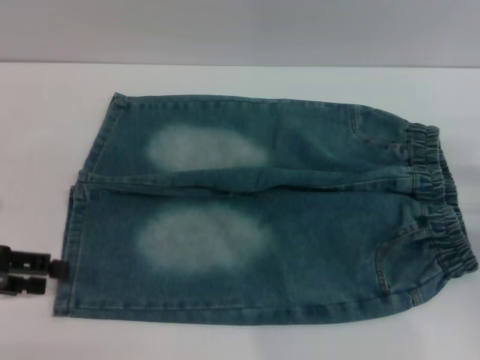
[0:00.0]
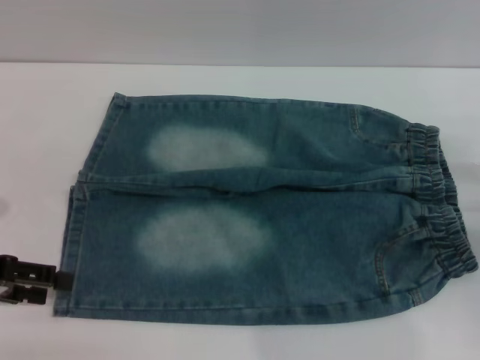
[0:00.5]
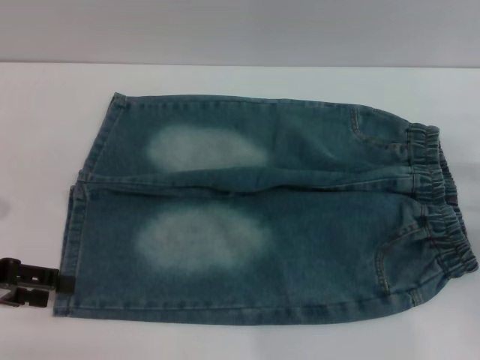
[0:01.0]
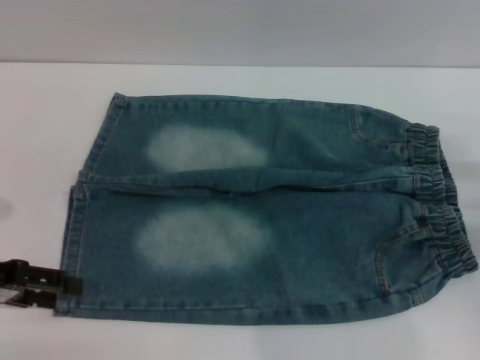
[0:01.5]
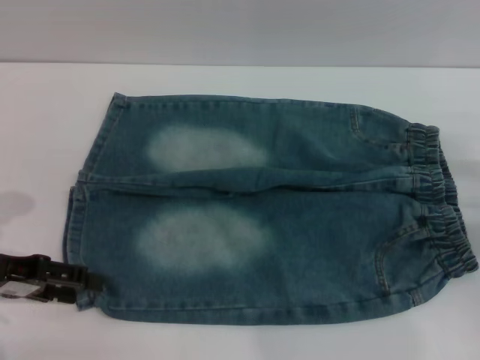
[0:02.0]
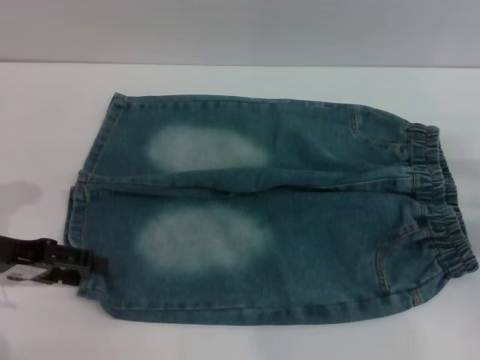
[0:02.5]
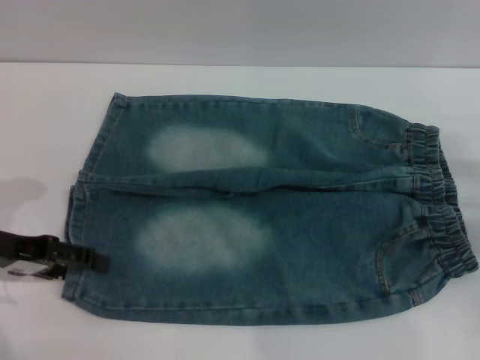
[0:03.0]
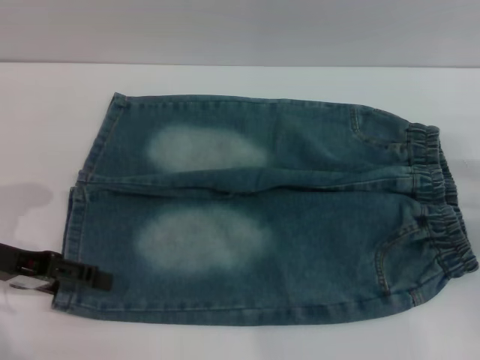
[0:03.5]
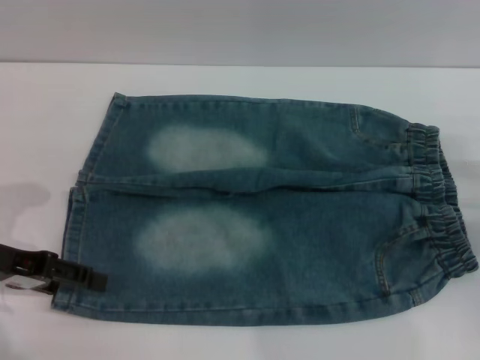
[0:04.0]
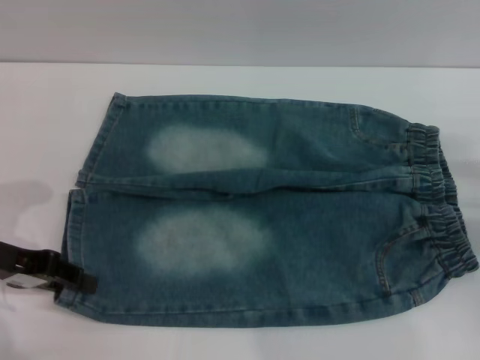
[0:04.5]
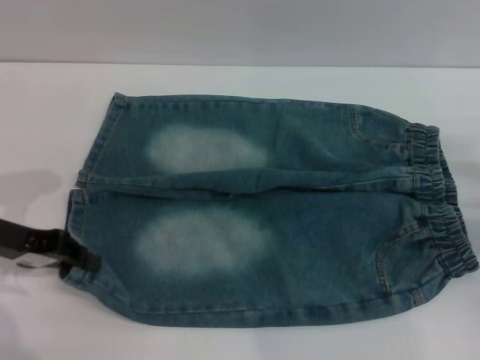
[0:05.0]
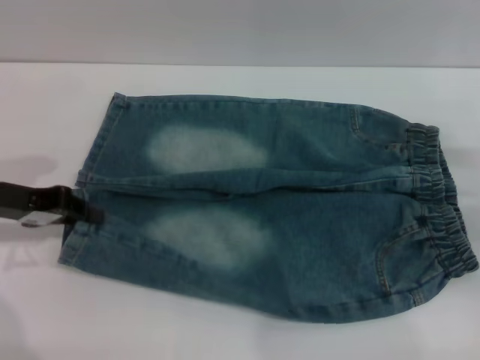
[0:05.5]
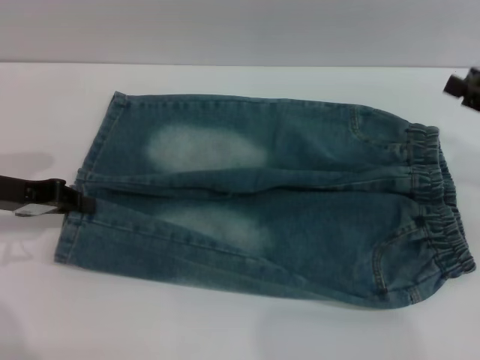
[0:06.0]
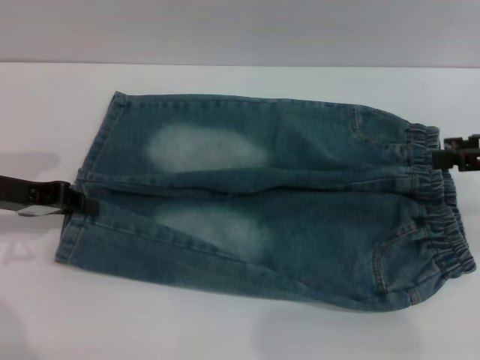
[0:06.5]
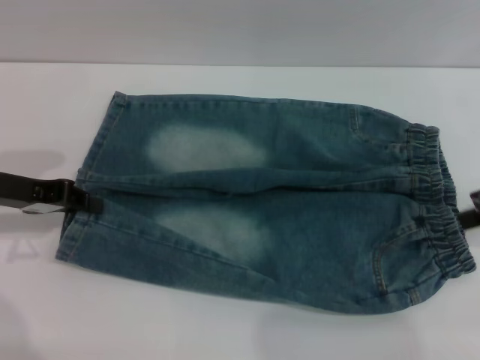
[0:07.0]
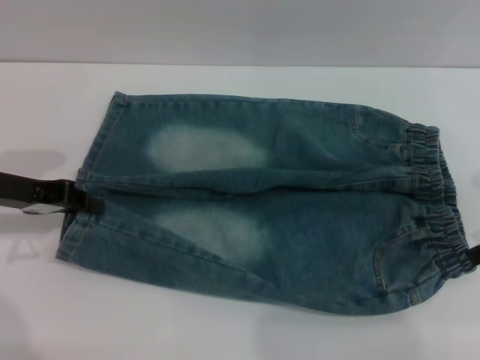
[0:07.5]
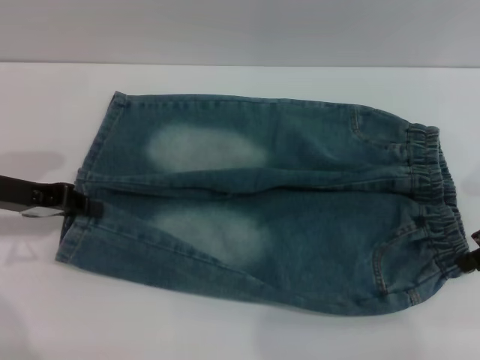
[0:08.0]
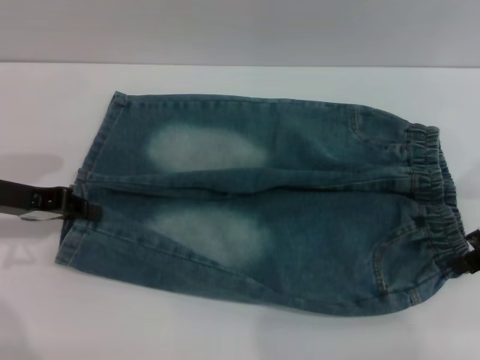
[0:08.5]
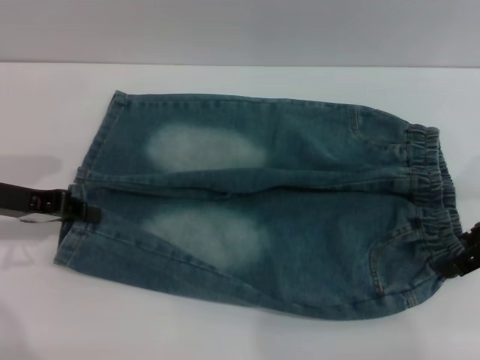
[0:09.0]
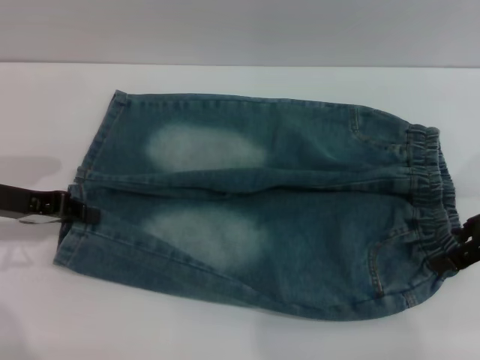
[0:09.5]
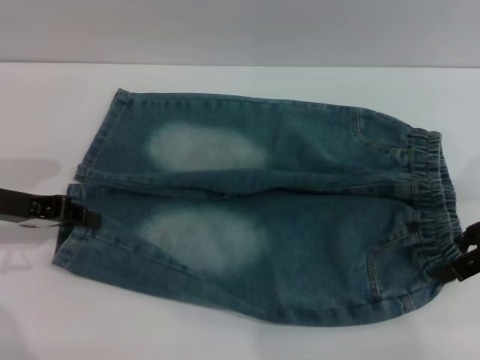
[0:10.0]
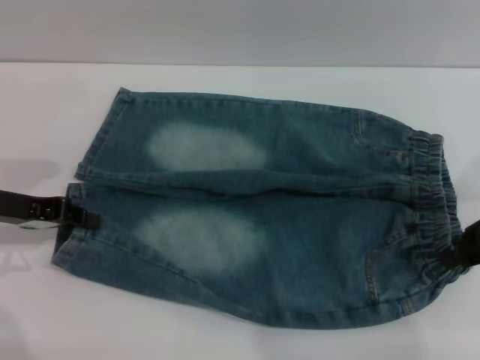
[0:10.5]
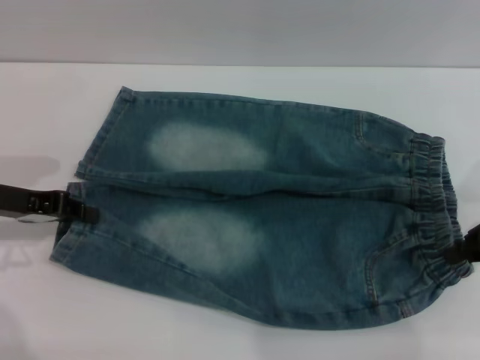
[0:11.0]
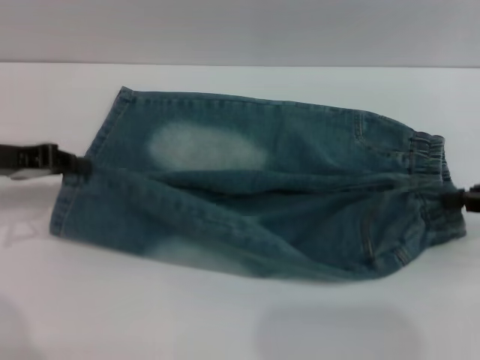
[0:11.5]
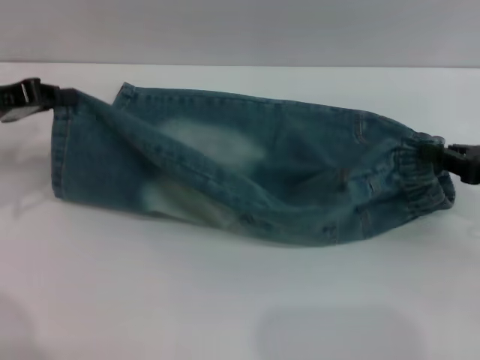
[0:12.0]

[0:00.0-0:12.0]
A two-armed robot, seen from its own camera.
0:00.0 to 0:04.0: The grippers stay close to where they were, moving slightly.
0:04.0 to 0:06.0: The right gripper travels upward by about 10 cm; the left gripper closes its fingers.
0:08.0 to 0:10.0: There are only small adjustments of the grippers.
0:10.0 to 0:12.0: The right gripper changes place by some 5 cm, and closes its fingers, while the left gripper changes place by some 5 cm.

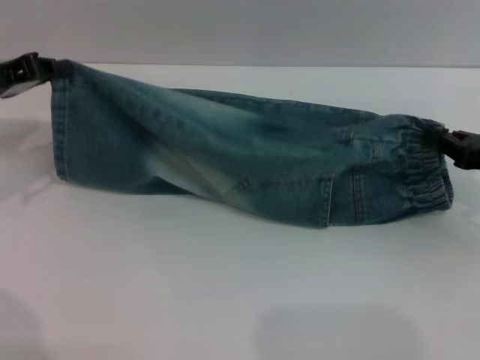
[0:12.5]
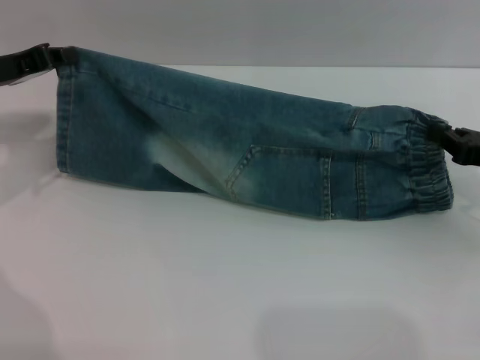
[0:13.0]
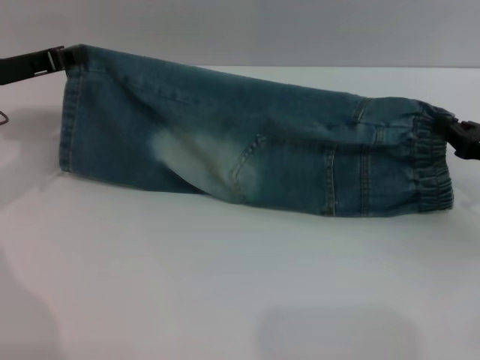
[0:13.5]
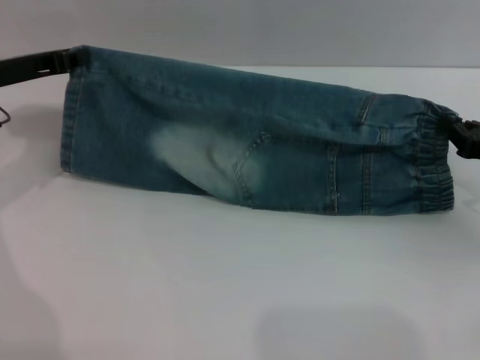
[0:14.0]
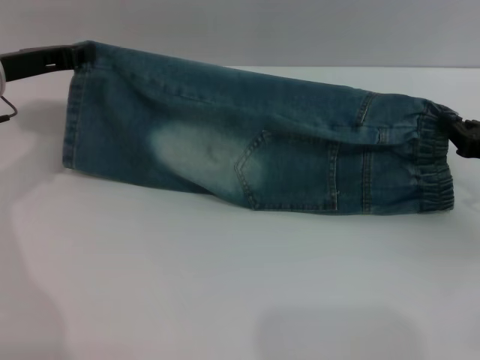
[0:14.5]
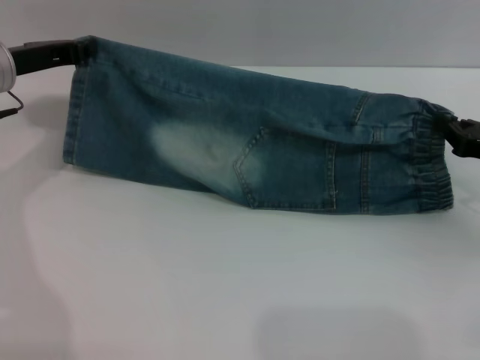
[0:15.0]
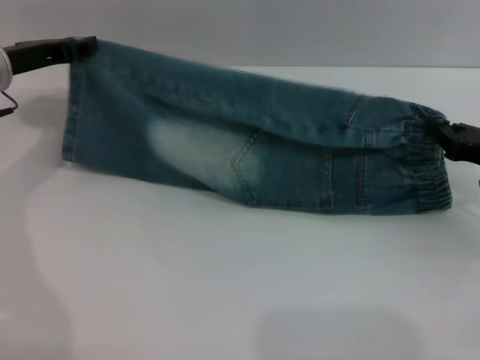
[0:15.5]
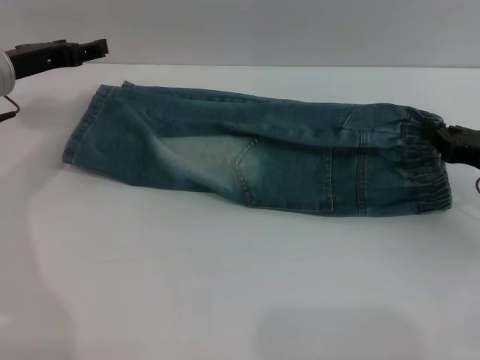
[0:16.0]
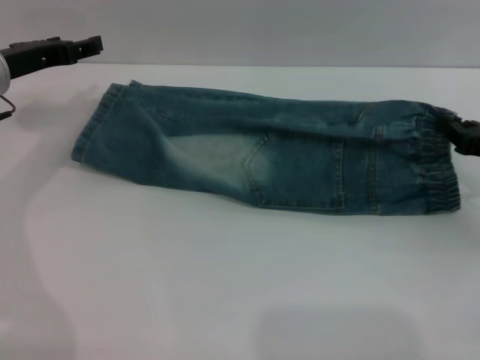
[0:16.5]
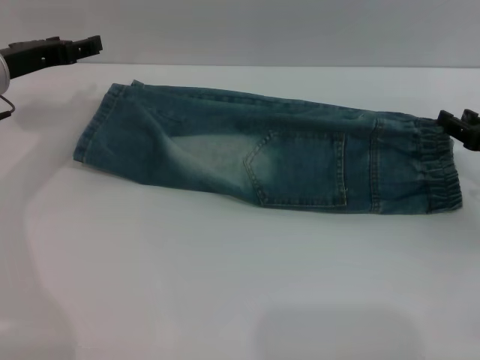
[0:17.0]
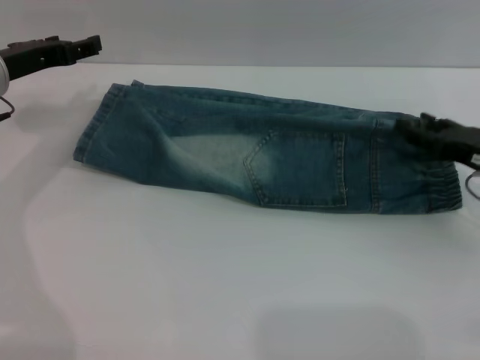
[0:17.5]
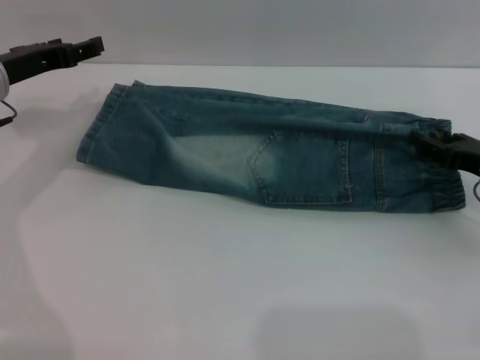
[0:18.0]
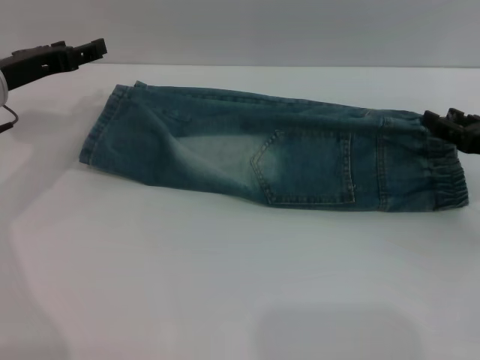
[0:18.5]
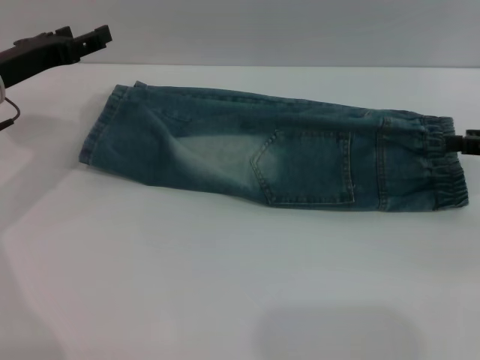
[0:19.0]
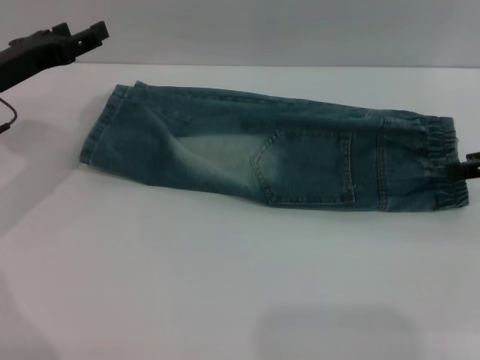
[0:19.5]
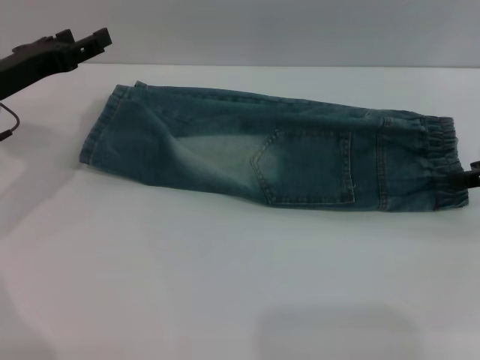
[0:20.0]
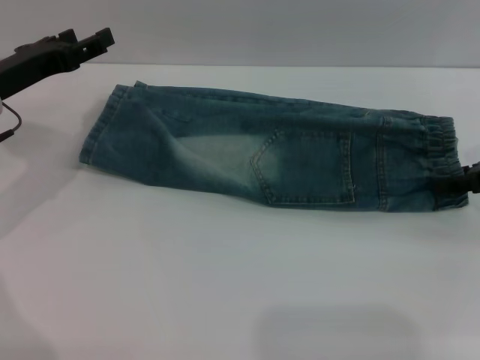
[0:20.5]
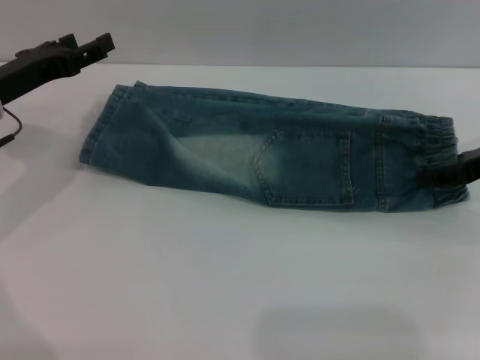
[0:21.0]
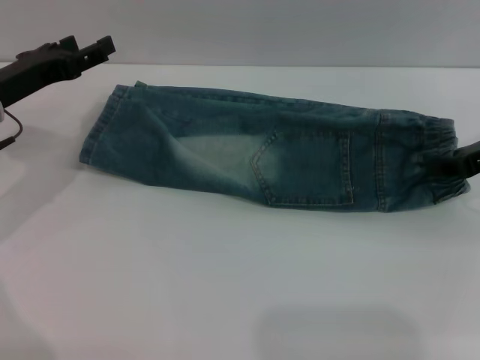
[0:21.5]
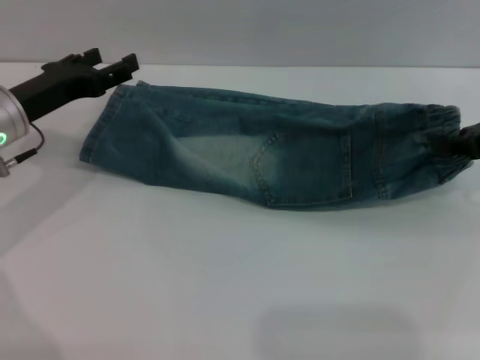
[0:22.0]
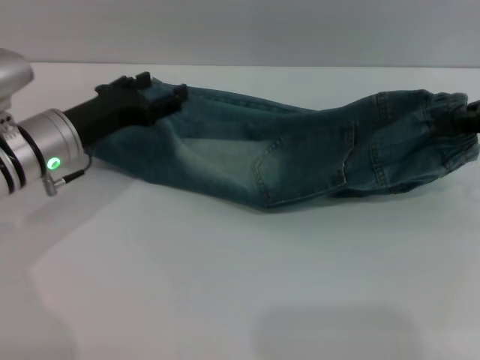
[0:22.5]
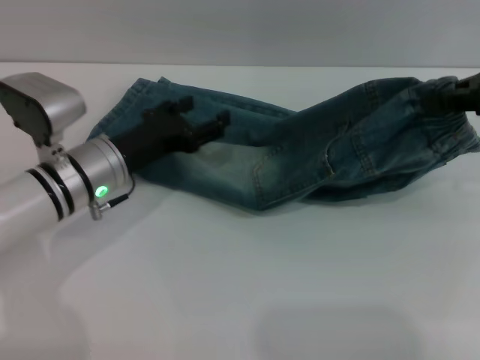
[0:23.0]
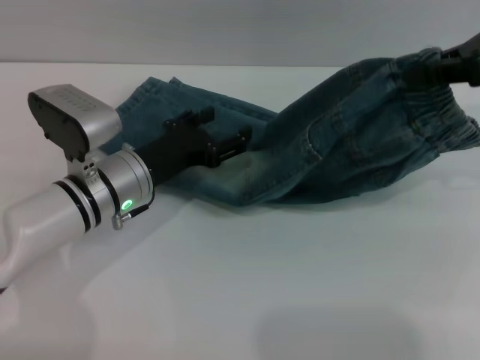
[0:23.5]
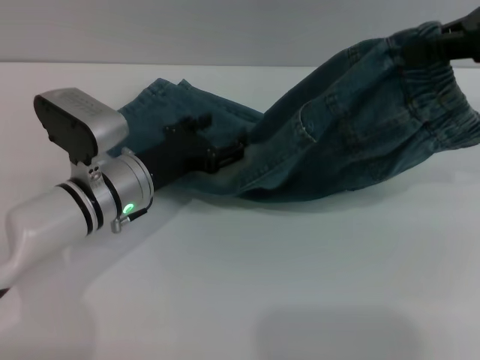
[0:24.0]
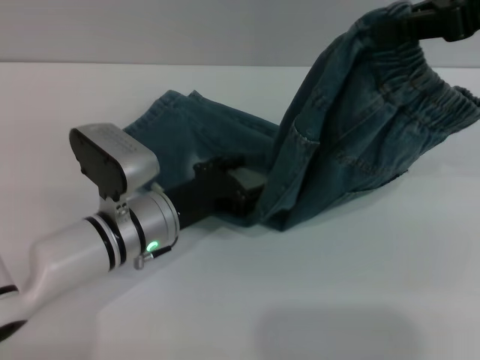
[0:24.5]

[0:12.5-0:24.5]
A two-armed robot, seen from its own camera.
Step, 0:12.5 to 0:16.5: Fold the bottom of the pants upward with both grippers.
0:12.5 to 0:14.5: The left gripper changes place by about 5 cm.
0:14.5 to 0:16.5: The left gripper opens.
0:16.5 to 0:18.5: The right gripper opens up.
0:18.5 to 0:20.5: The right gripper moves approximately 5 cm.
0:20.5 to 0:22.5: The right gripper goes about 10 cm upward, and closes; the left gripper travels to the right by approximately 5 cm.
0:22.5 to 0:24.5: The left gripper travels to the right, downward and backward by about 10 cm, while the right gripper goes roughly 10 cm upward and to the left.

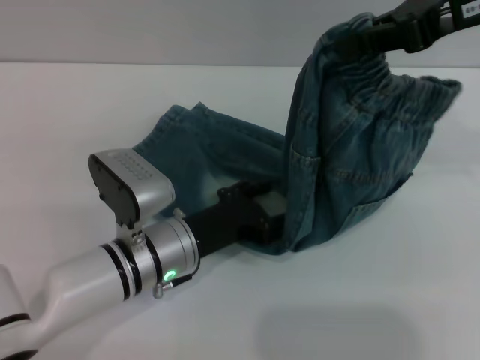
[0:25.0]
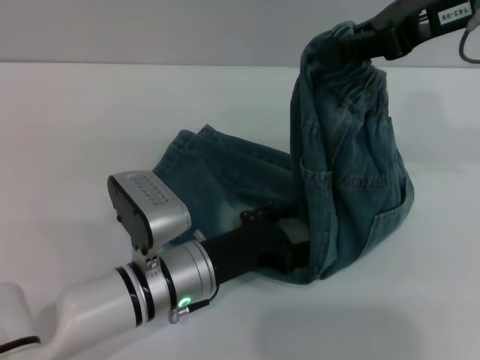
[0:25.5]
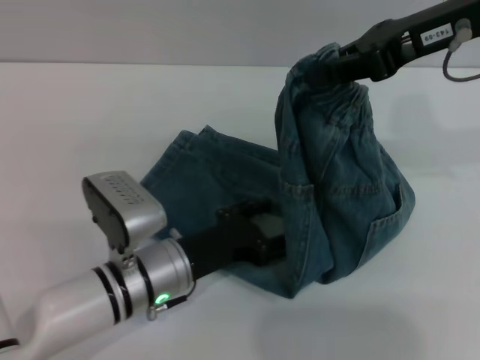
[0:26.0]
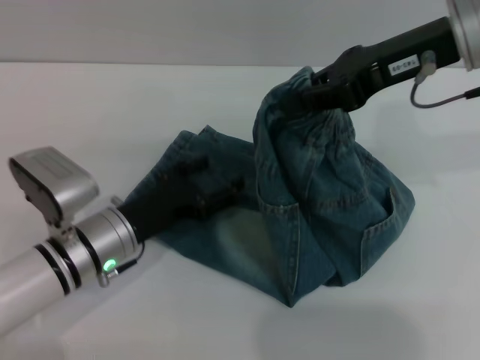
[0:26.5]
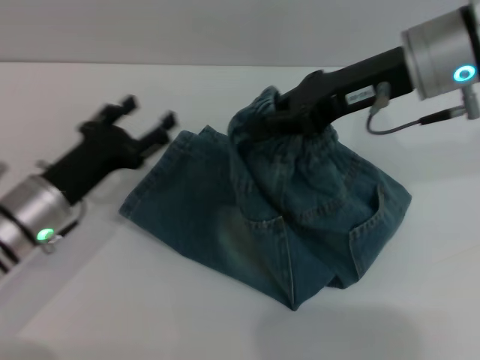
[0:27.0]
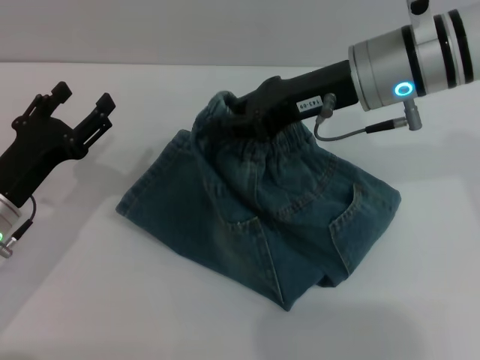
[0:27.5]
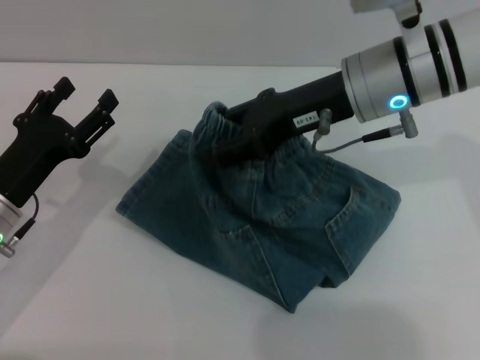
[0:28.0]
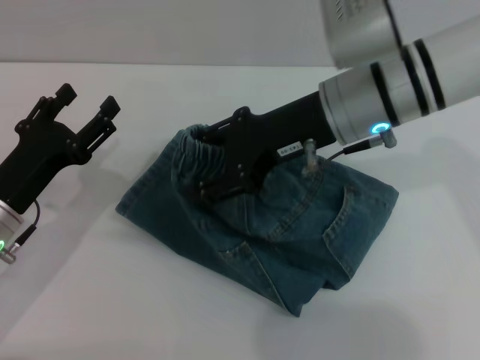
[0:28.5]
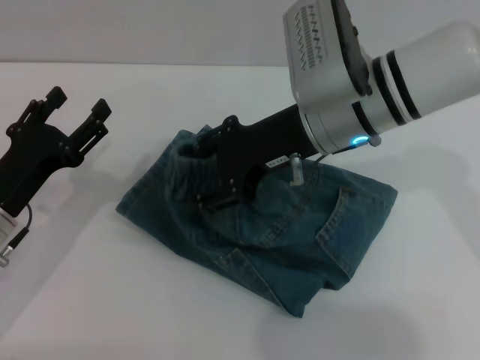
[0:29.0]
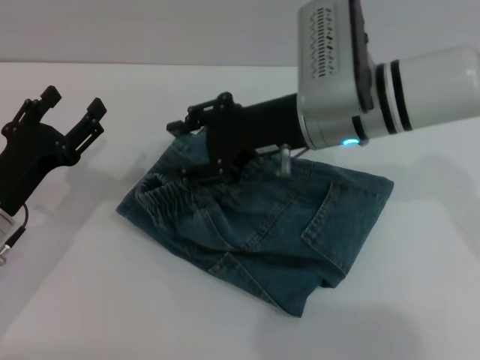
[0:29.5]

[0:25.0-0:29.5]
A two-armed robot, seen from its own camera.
0:25.0 to 0:27.0: The right gripper moves downward and to the left, some 10 cm; the left gripper travels to the left by about 10 cm.
0:27.0 to 0:29.5: The right gripper travels to the left and downward by about 10 cm, and opens up.
